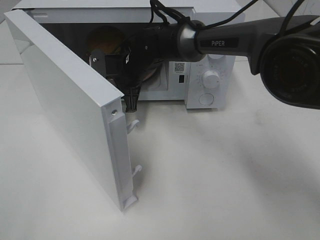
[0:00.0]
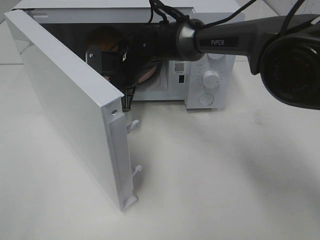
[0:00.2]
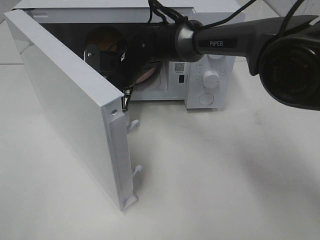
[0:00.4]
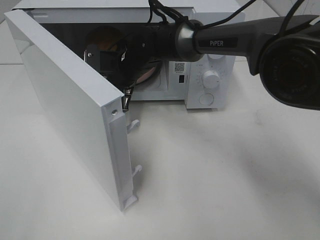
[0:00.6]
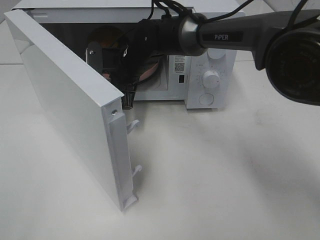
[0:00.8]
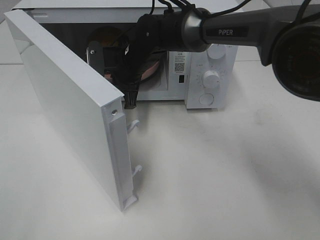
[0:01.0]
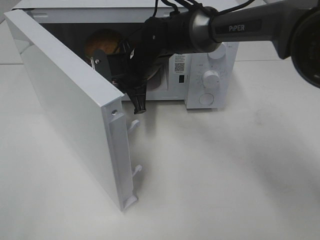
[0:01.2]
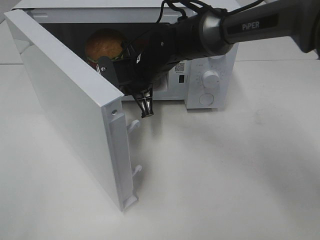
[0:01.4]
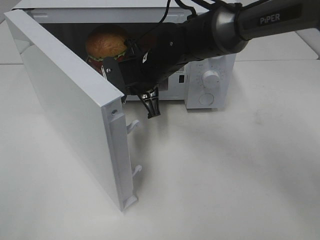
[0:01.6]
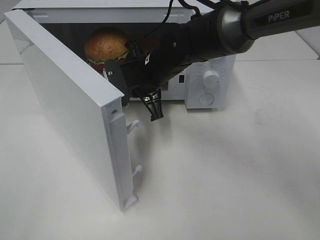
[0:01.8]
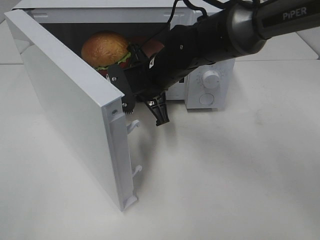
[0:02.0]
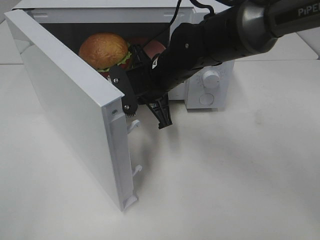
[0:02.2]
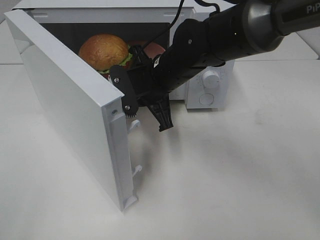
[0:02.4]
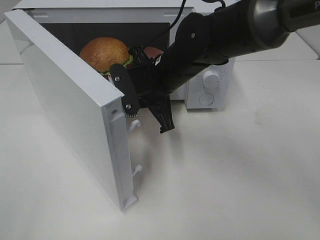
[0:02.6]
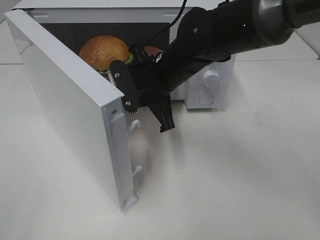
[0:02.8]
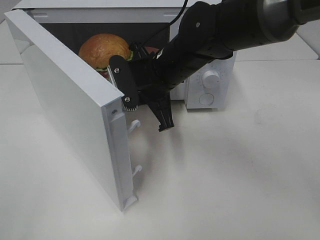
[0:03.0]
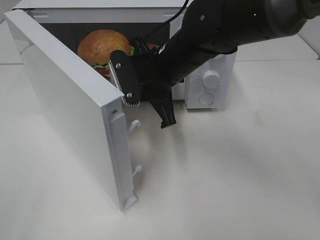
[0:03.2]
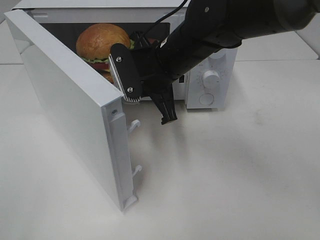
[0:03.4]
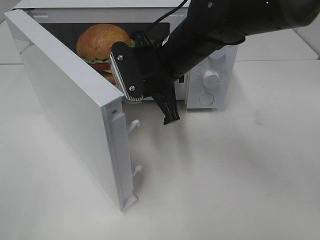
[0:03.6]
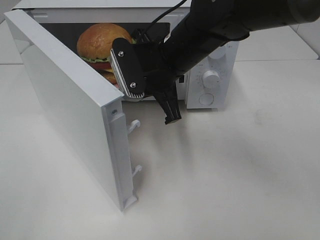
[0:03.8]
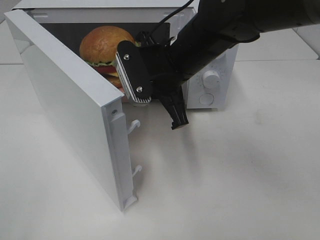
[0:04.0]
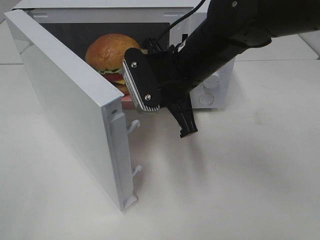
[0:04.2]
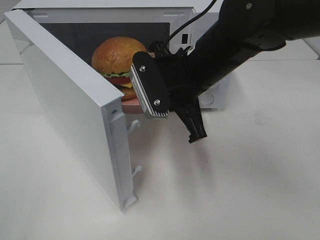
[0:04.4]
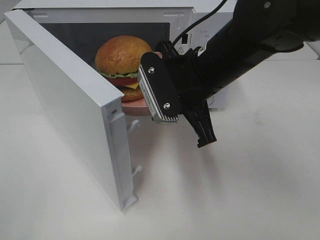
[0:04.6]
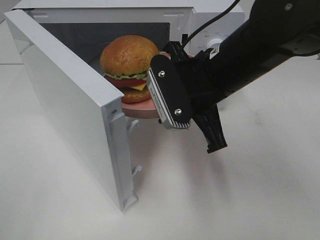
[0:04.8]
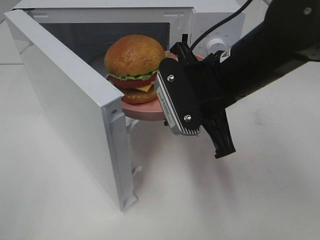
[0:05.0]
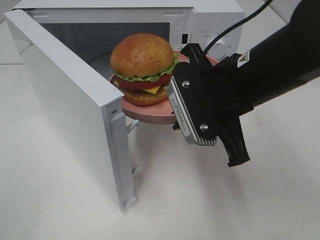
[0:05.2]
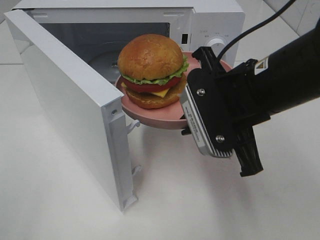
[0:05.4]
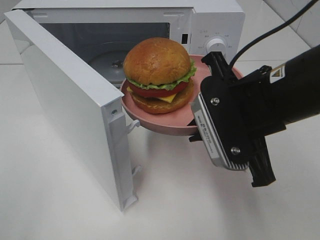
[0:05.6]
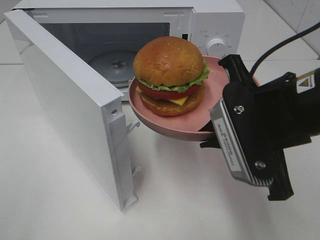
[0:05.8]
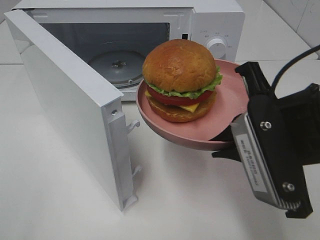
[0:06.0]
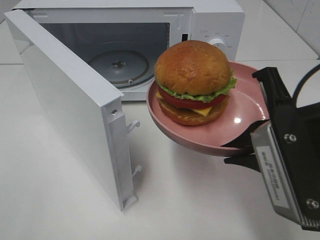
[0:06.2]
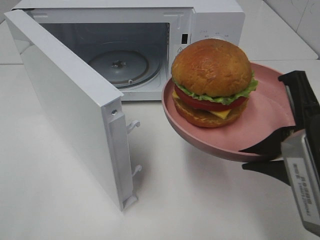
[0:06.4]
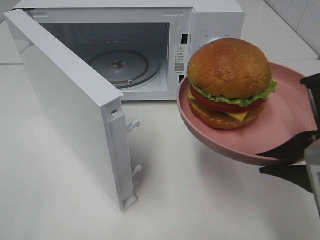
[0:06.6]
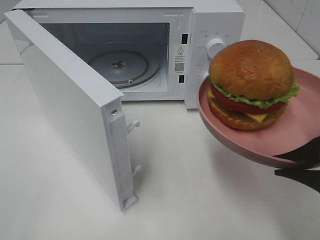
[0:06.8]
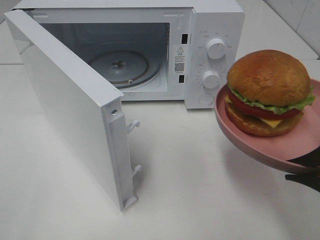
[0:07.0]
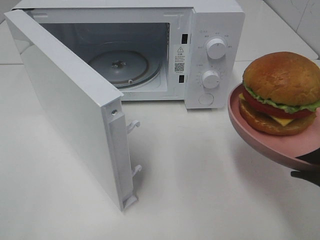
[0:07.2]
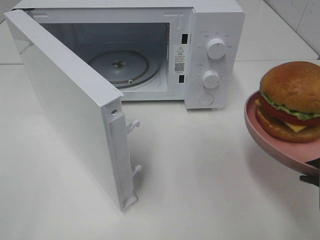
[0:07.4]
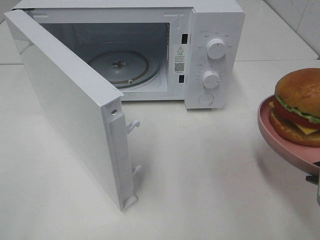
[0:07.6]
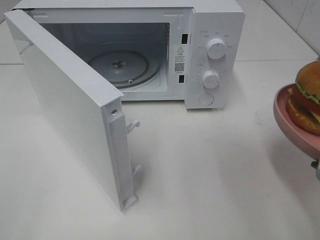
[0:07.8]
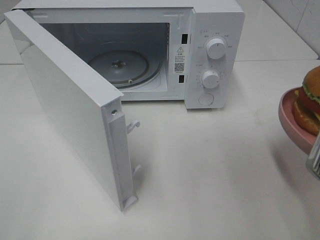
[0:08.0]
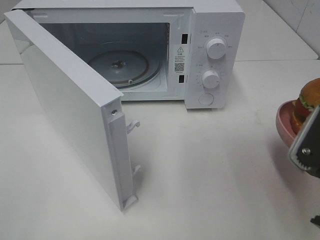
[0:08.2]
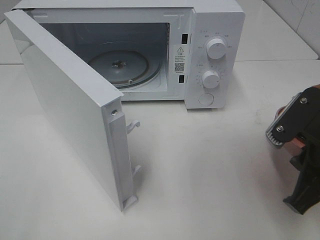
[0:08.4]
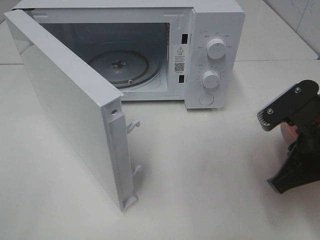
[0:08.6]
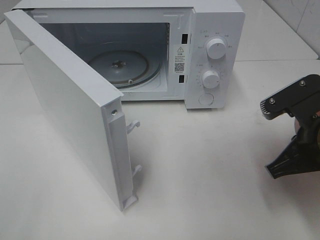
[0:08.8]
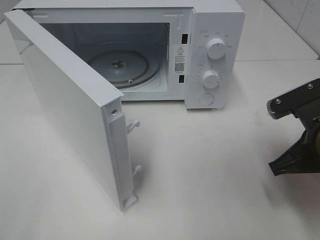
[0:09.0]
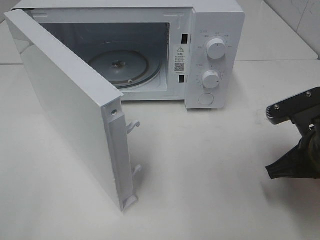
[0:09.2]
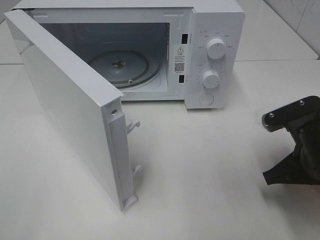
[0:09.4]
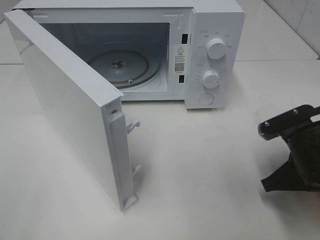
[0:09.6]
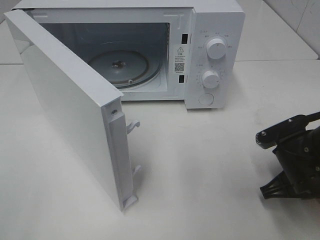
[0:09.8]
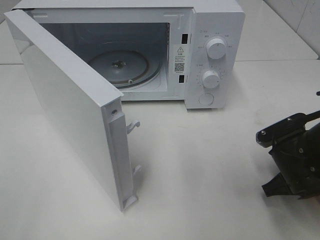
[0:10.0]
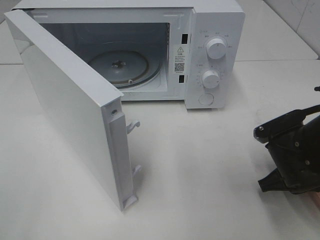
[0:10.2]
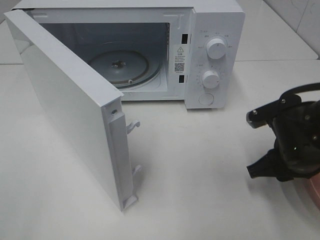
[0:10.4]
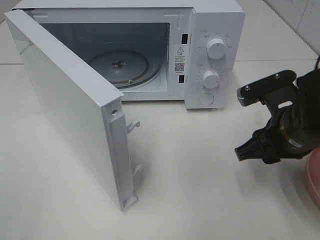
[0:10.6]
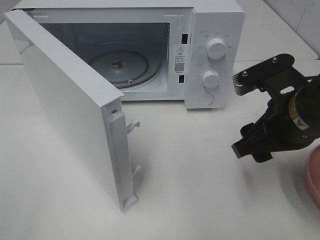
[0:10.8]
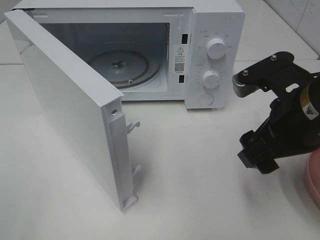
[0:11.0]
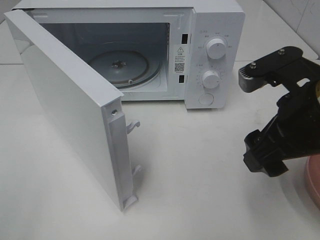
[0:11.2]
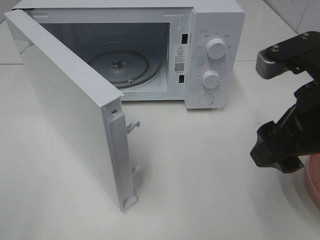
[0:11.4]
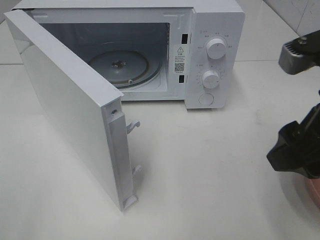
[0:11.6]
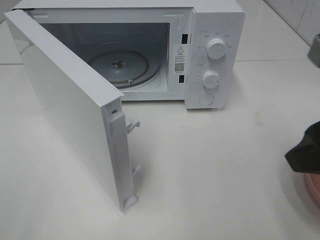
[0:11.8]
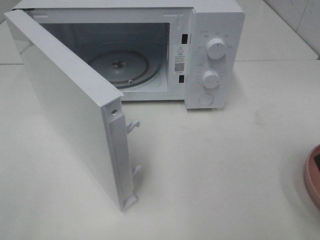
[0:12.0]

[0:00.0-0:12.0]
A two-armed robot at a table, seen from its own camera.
Task of the whole recording: Heat the burger.
Step, 0:00.4 to 0:10.2: Right hand: place the plate on the table.
0:00.0 to 0:01.6: The right gripper moves backward, roughly 5 cm, and closes up.
0:01.6 to 0:03.0: The right gripper is displaced backward by some 5 cm.
0:03.0 to 0:04.4: The right gripper heads backward, covering about 5 cm.
0:04.4 to 0:06.0: The right gripper goes roughly 15 cm backward and to the right.
0:06.0 to 0:07.6: The right gripper goes about 10 cm to the right and backward.
0:07.6 to 0:09.0: The right gripper is displaced forward and downward by approximately 10 cm.
0:09.0 to 0:10.4: The right gripper ends up about 5 cm from where it was, and opens up.
0:10.4 to 0:12.0: The right gripper is displaced upward and backward by some 20 cm.

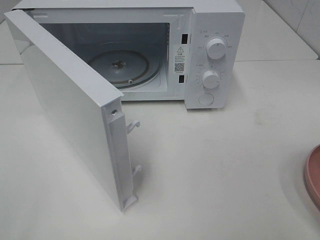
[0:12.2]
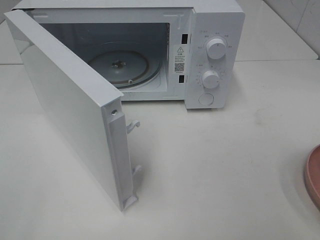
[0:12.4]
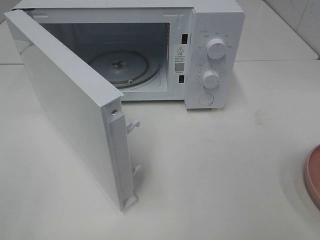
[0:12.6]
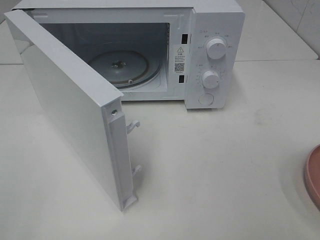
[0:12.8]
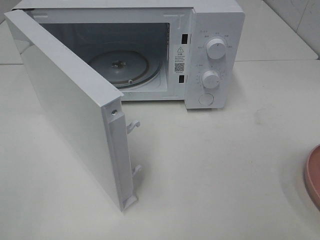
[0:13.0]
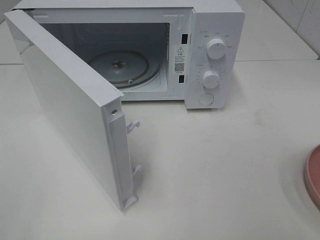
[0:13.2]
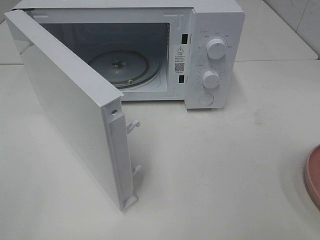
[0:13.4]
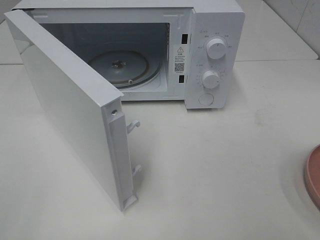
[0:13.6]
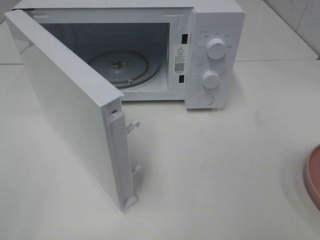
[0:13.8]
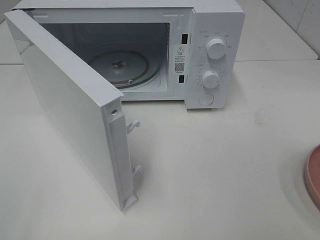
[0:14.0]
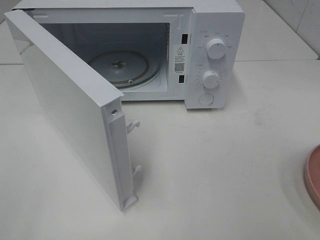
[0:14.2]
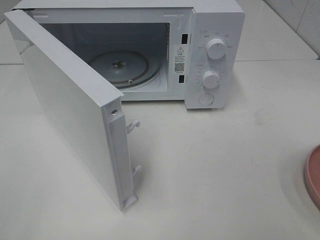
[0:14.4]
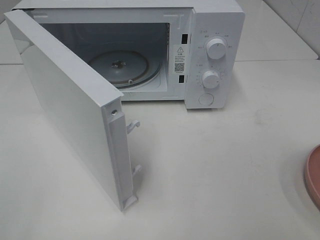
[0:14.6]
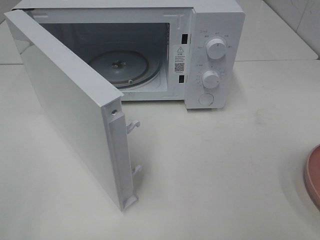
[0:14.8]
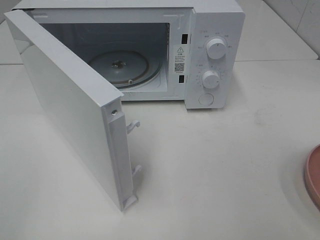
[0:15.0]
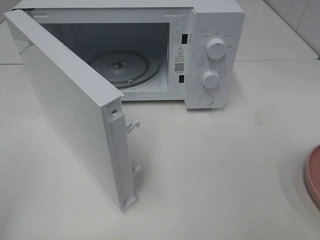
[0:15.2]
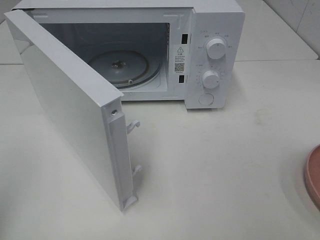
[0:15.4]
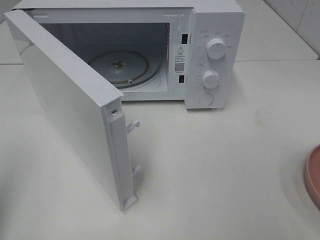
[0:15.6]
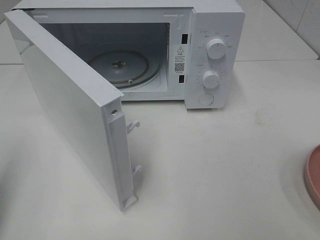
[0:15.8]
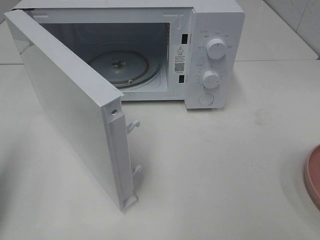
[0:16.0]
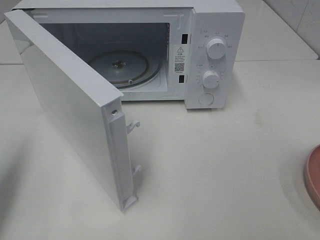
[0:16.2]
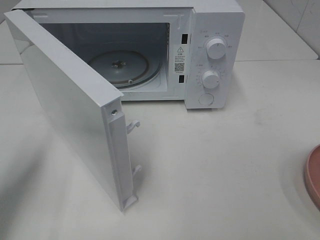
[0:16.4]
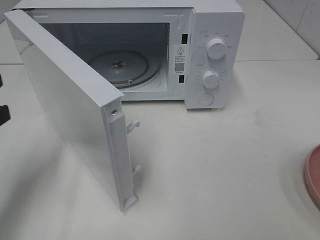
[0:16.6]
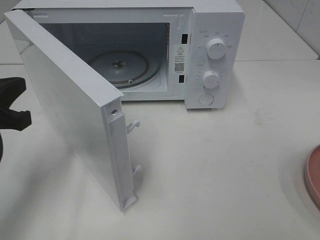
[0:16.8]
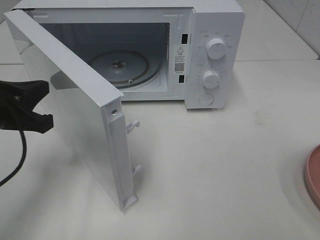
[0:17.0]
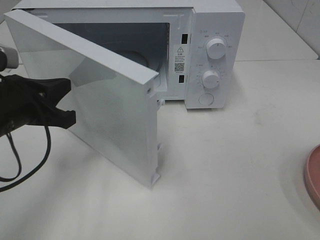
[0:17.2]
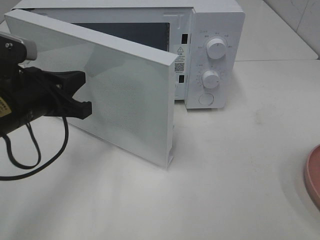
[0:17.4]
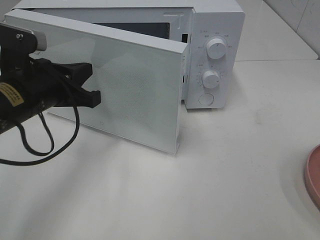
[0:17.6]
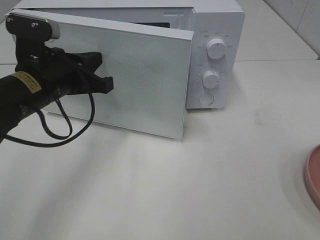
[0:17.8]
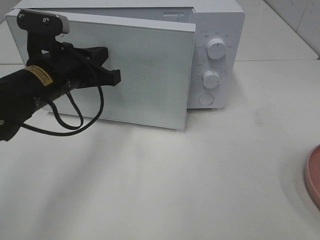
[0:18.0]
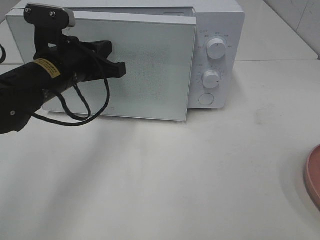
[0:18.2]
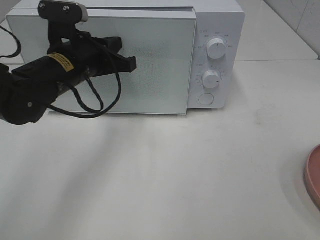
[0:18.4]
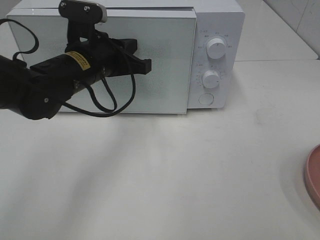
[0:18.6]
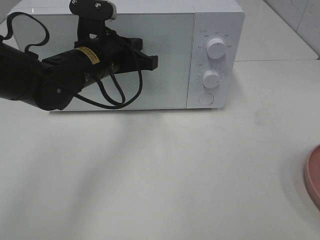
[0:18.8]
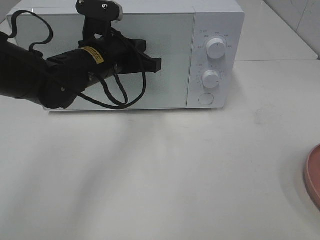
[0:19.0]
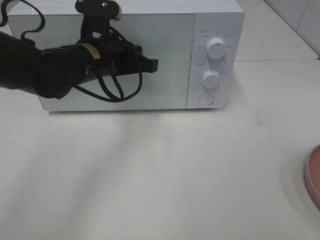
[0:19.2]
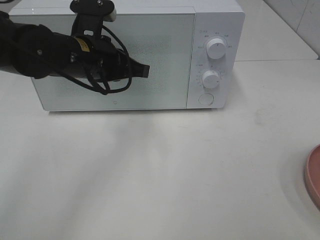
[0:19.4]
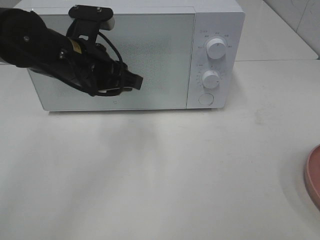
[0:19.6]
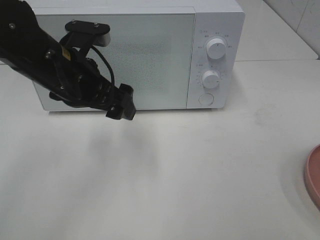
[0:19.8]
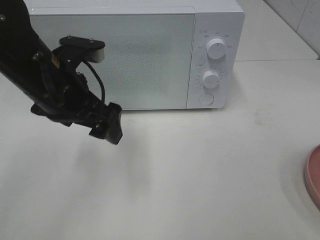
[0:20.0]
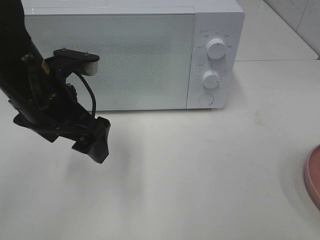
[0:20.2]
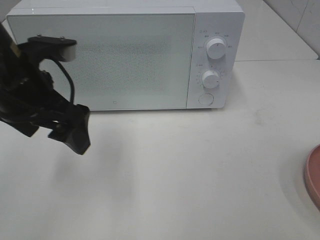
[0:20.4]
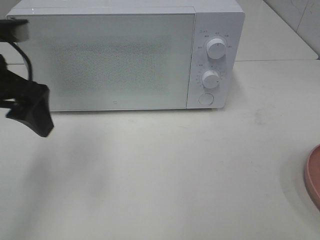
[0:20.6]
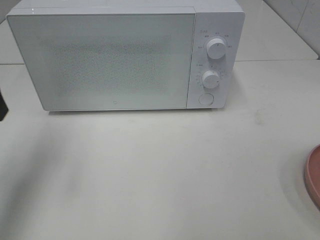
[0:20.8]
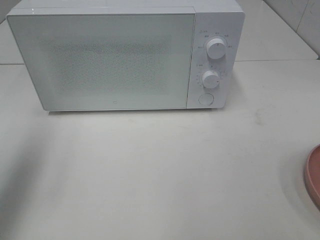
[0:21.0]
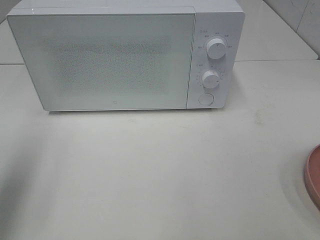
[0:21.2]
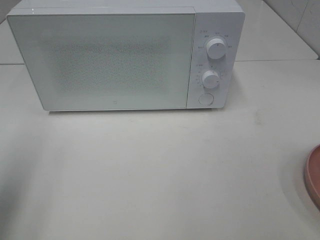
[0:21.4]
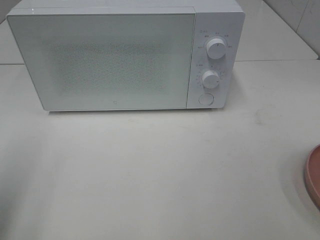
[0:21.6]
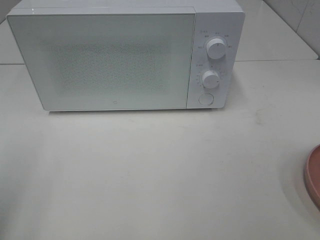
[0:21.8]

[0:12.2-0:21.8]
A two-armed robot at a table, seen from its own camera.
Task of the whole recording: Heat the burger.
Step, 0:12.2 to 0:19.2: Left hand: close the microwave door.
0:15.4 to 0:17.0: The left gripper heads forward, downward and to the right, covering roughly 20 cm.
0:17.0 to 0:18.6: The left gripper is displaced to the right and forward by approximately 15 cm.
0:18.6 to 0:20.2: The left gripper is displaced backward by some 10 cm, and opens.
0:20.2 to 0:21.8: The left gripper moves to the left and backward, some 25 cm.

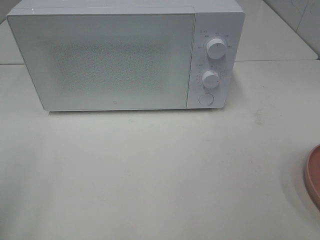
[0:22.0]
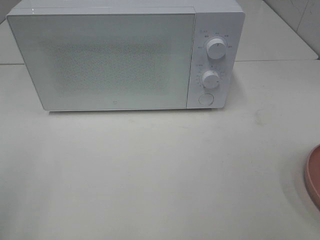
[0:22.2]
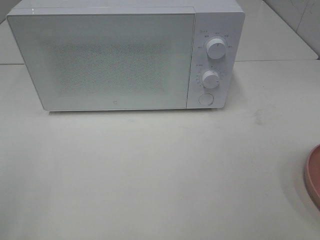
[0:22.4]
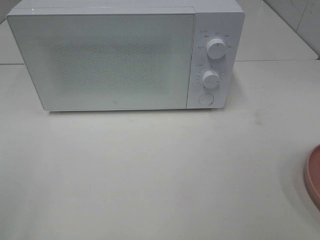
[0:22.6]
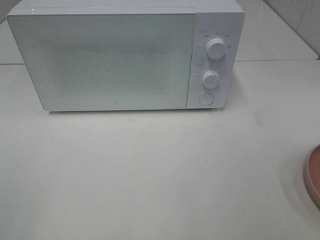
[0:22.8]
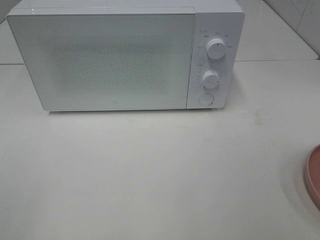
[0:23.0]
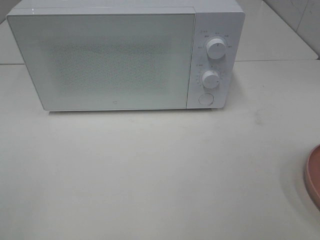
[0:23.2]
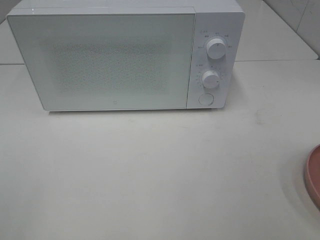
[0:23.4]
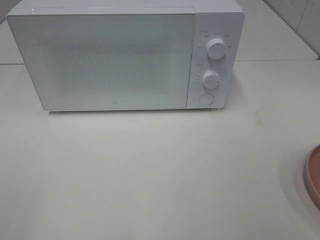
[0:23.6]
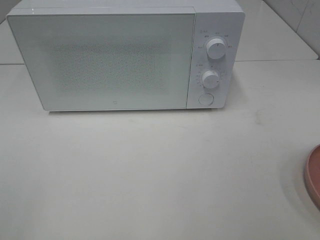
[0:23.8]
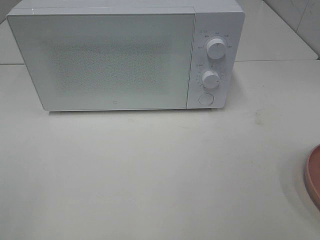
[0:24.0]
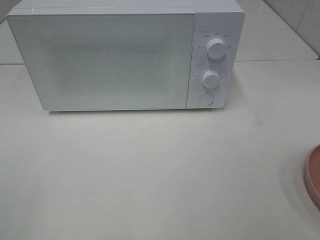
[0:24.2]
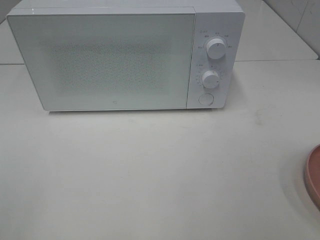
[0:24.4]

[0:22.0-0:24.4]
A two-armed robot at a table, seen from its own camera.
Task of the whole recording: Heat the burger.
0:23.2 to 0:24.4: Both grippers stay about where they are.
